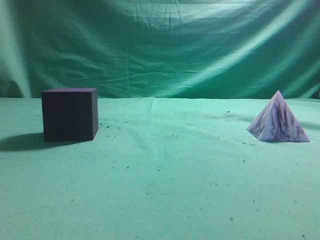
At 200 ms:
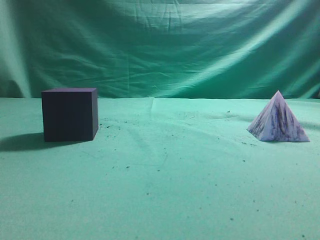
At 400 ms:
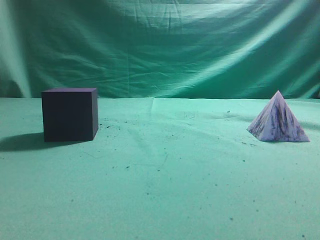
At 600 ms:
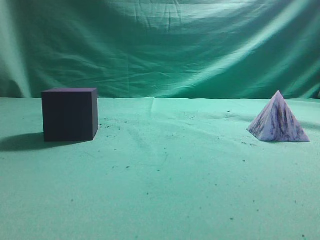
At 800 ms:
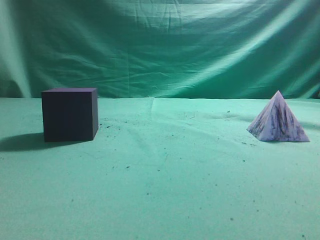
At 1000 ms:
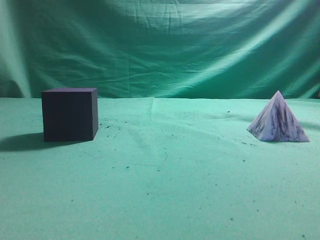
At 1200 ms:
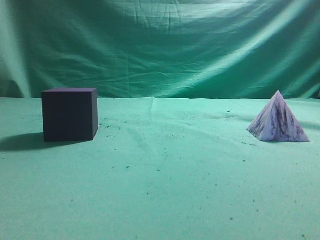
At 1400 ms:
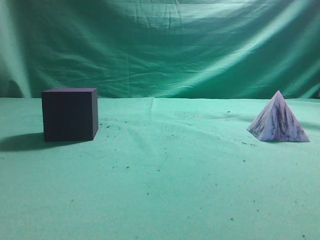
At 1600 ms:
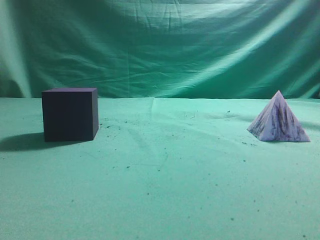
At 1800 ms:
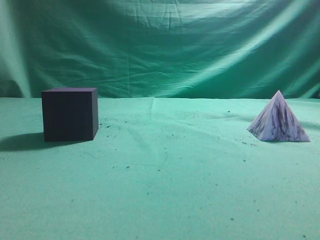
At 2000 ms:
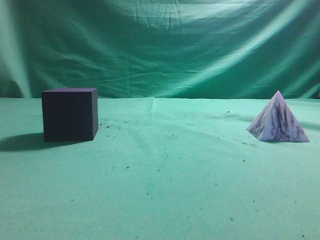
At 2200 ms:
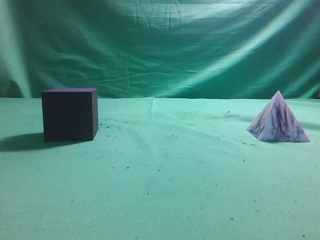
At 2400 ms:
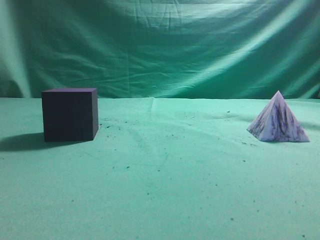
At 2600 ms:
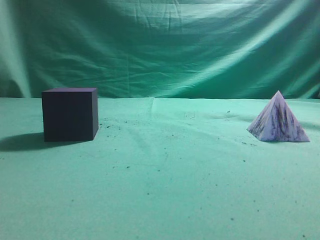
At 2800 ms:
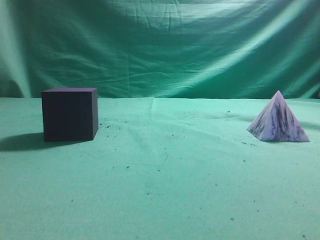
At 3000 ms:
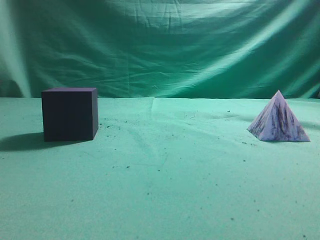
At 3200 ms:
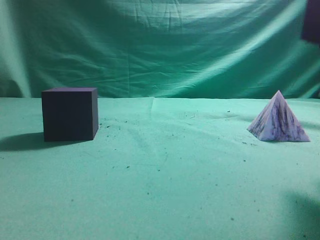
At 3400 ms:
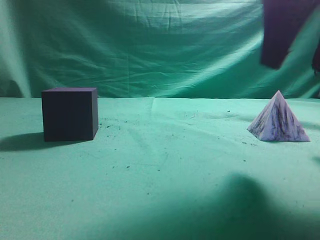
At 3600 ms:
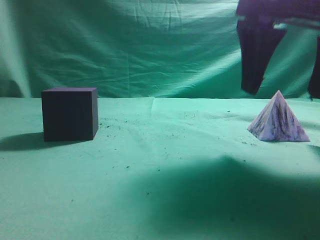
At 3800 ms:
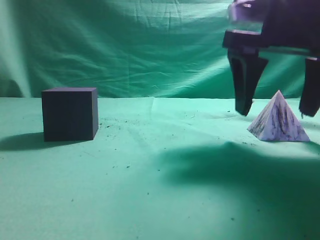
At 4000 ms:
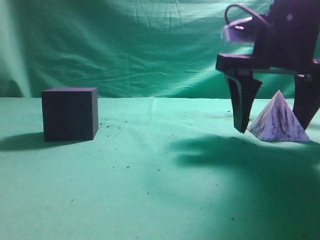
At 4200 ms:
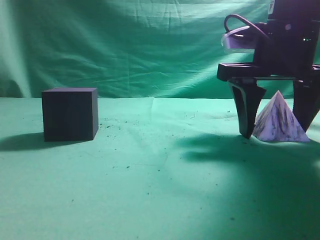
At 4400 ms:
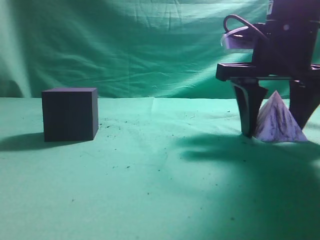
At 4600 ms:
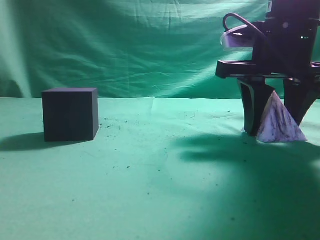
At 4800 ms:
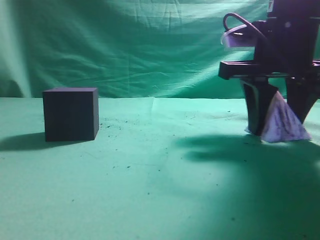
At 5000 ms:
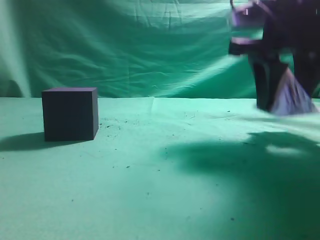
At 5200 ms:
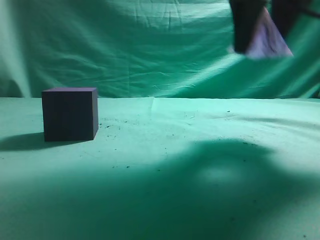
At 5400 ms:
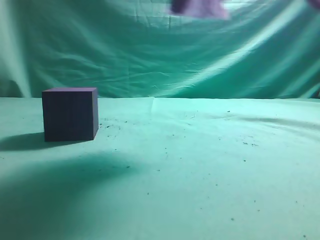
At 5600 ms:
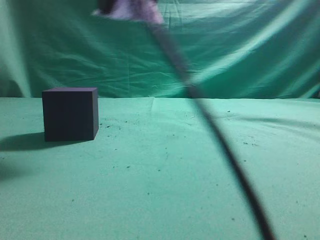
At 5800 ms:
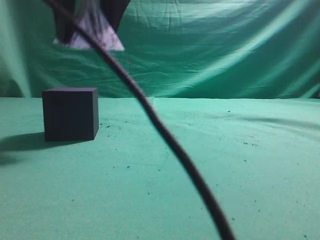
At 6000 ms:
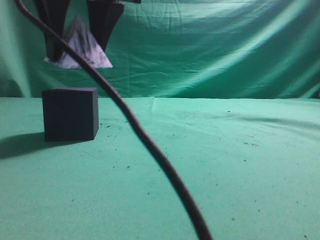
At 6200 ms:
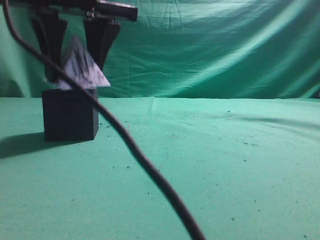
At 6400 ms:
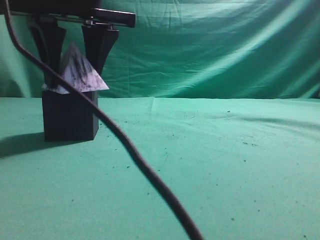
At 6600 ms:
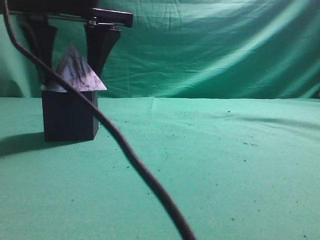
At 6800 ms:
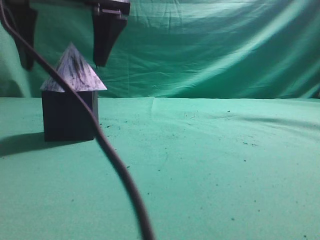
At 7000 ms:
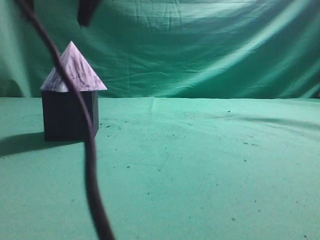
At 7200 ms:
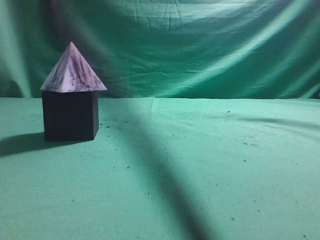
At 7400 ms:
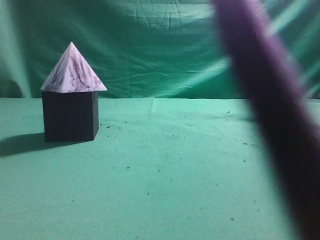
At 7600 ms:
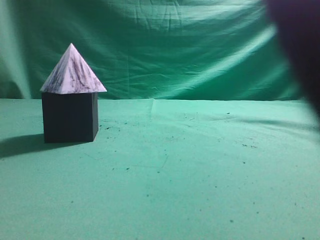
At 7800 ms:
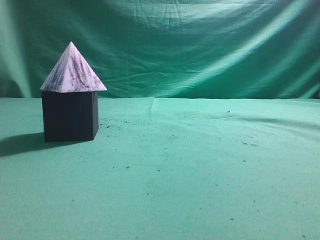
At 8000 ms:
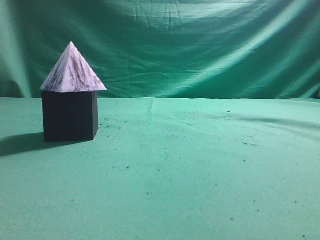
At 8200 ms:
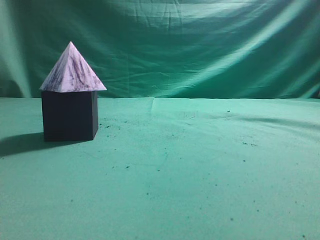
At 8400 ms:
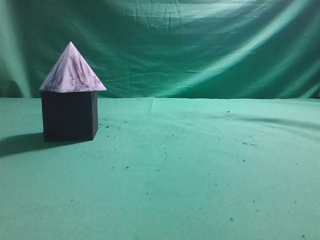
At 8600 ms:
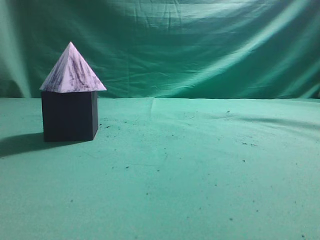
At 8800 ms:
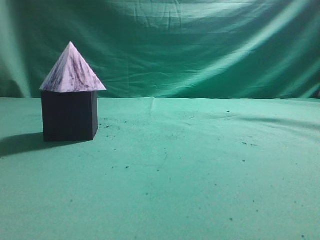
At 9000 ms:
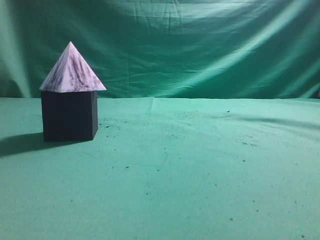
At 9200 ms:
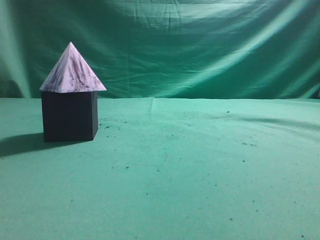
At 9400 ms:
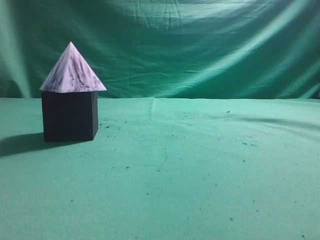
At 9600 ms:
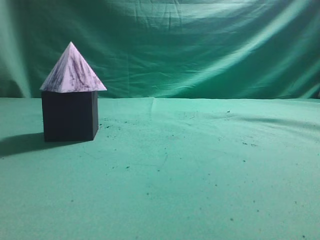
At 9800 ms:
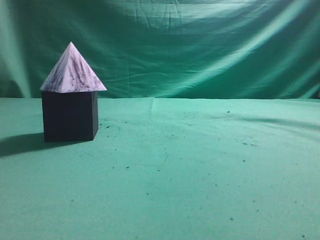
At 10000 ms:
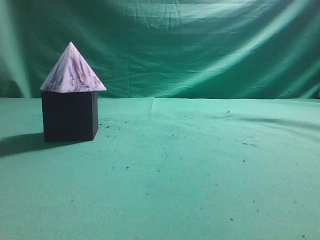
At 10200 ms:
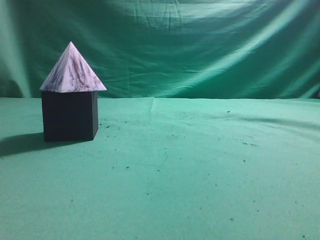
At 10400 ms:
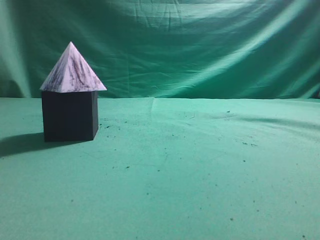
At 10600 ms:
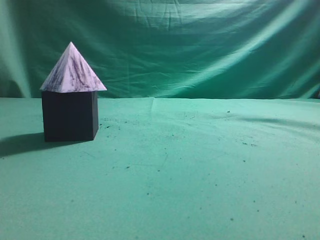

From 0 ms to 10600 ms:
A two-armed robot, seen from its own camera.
Task of the whole recording: pick up the square pyramid from the table and place it on the cube block.
Step, from 0 ms to 5000 ms: Grasp the triangular block.
Step, from 5200 ms to 6800 ms: Place the block onto the cube-shaped block.
From 3000 ms to 4600 ms: The right gripper travels forward and downward by about 15 cm, and opens and closes again.
From 4600 ms to 6000 ms: The right gripper shifts about 25 cm to the left.
From 6000 ms to 7600 ms: The right gripper is displaced upward, to the right and backward by some 35 cm, and closes up.
From 7600 ms to 9000 ms: The right gripper moves downward, to the right and backward, about 30 cm.
